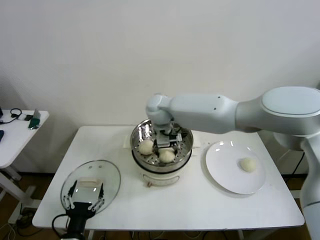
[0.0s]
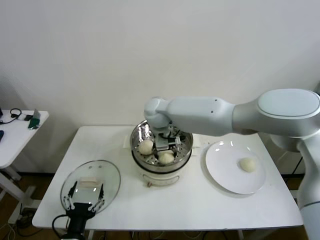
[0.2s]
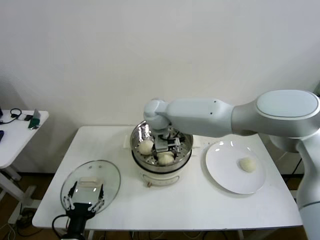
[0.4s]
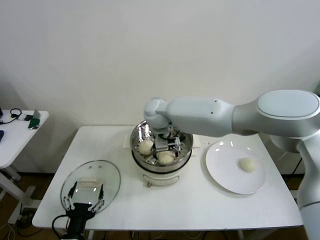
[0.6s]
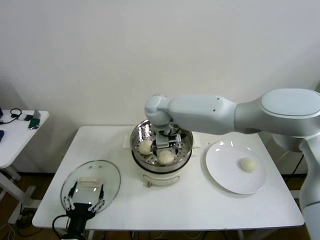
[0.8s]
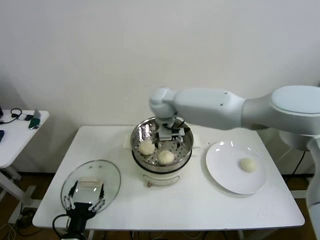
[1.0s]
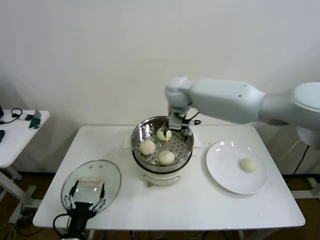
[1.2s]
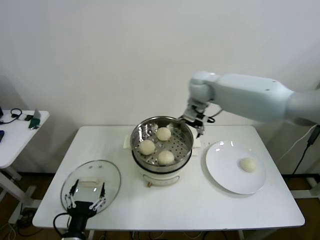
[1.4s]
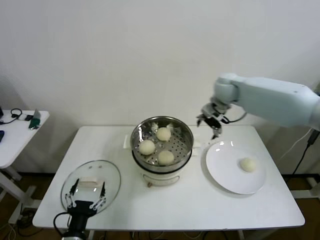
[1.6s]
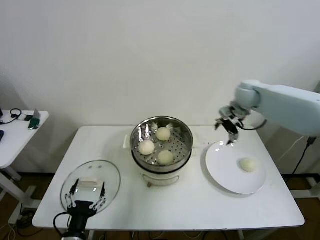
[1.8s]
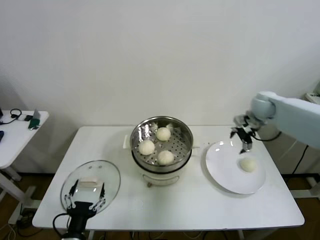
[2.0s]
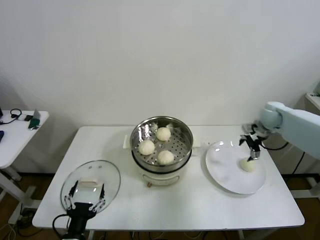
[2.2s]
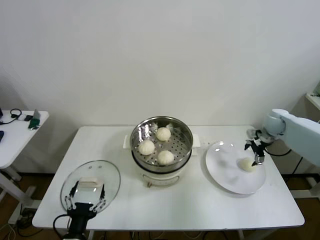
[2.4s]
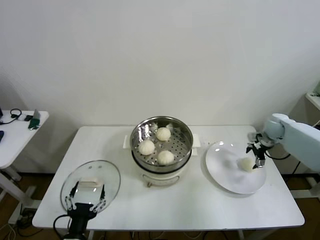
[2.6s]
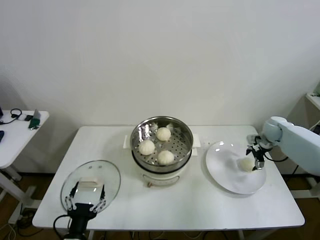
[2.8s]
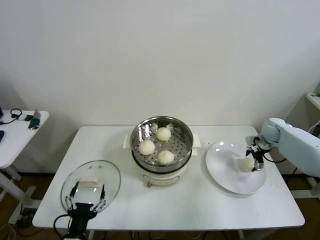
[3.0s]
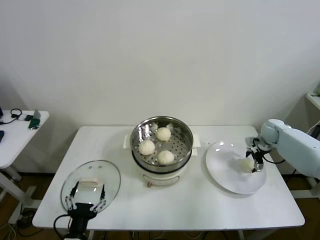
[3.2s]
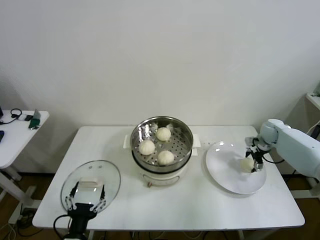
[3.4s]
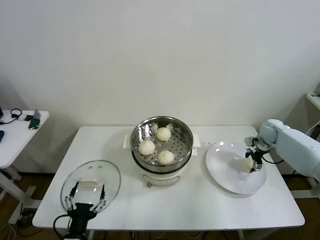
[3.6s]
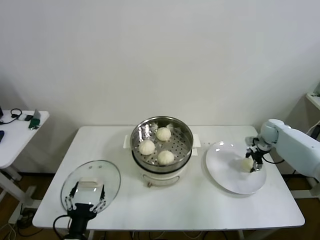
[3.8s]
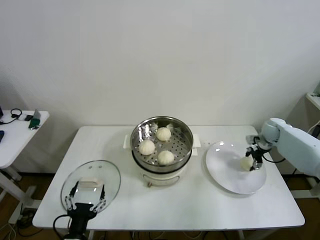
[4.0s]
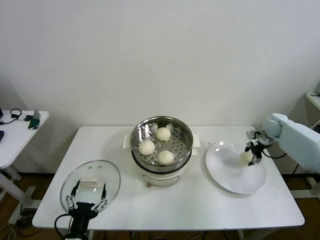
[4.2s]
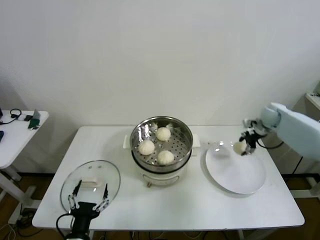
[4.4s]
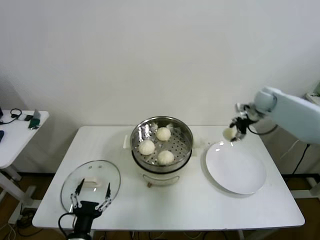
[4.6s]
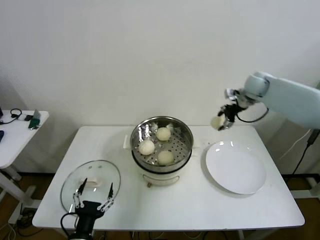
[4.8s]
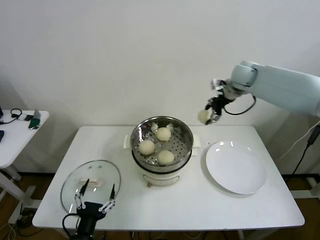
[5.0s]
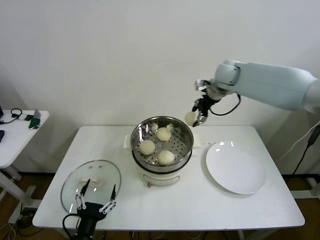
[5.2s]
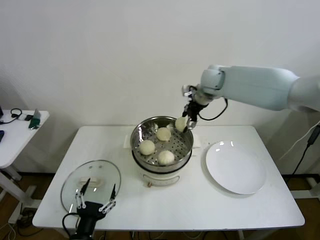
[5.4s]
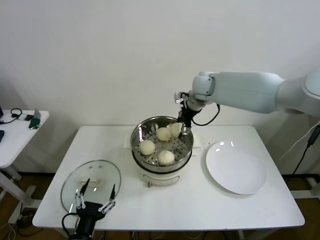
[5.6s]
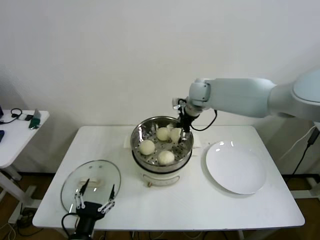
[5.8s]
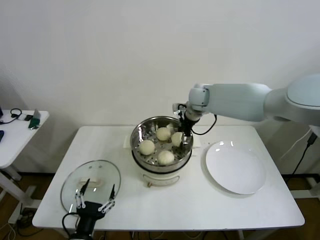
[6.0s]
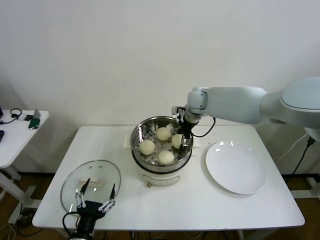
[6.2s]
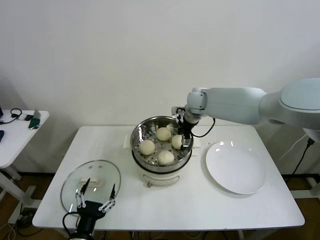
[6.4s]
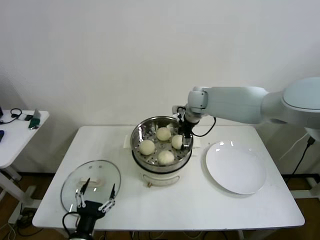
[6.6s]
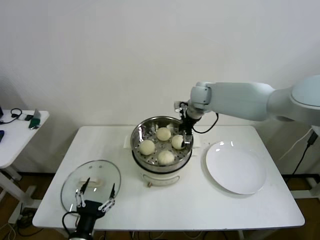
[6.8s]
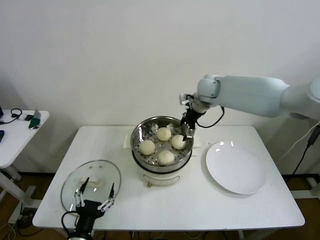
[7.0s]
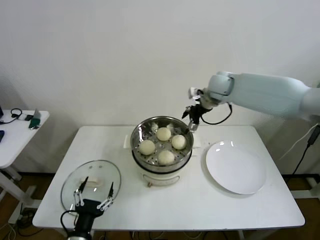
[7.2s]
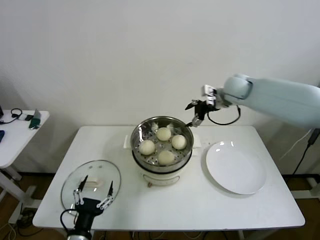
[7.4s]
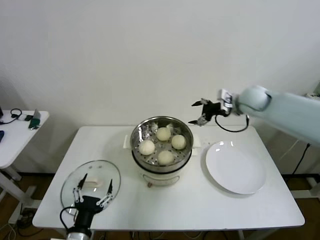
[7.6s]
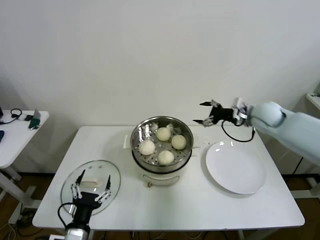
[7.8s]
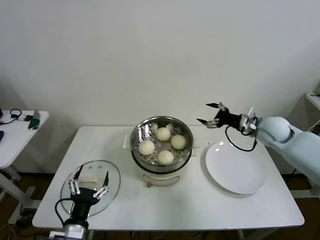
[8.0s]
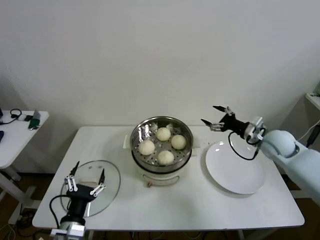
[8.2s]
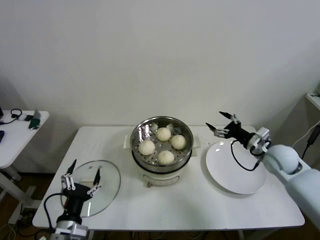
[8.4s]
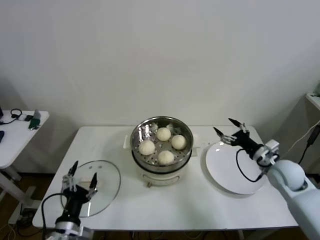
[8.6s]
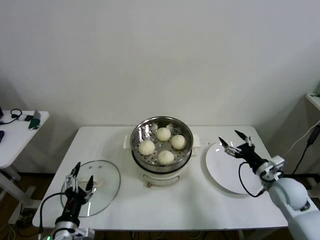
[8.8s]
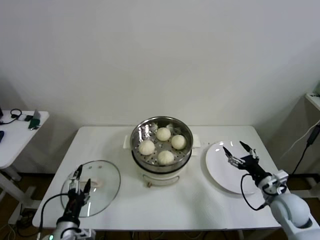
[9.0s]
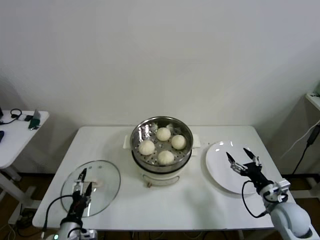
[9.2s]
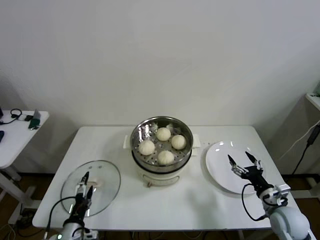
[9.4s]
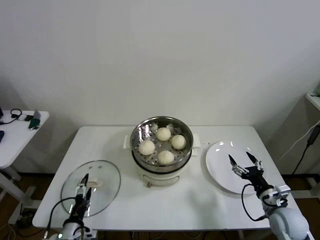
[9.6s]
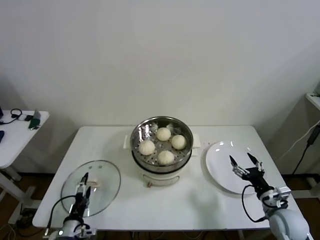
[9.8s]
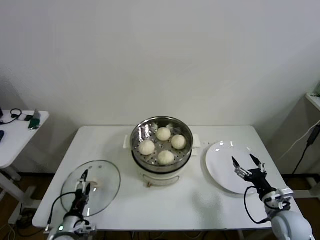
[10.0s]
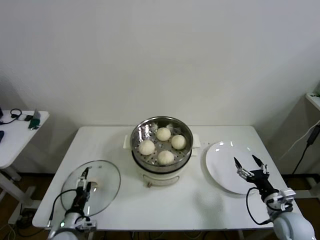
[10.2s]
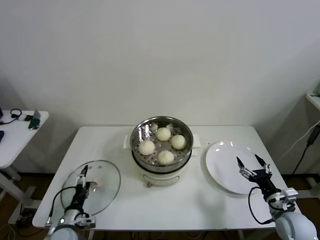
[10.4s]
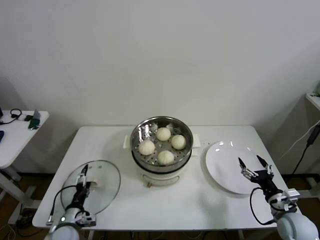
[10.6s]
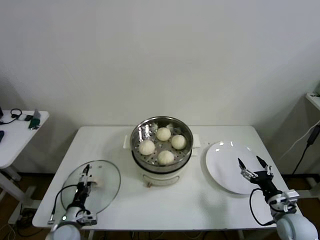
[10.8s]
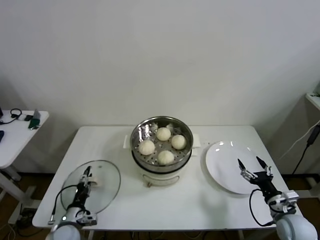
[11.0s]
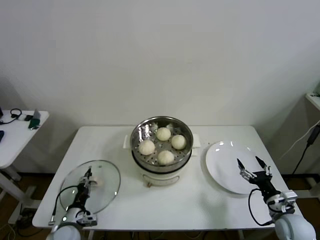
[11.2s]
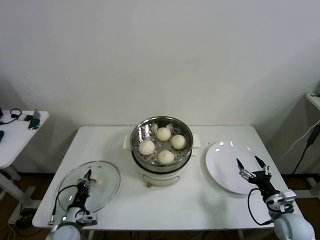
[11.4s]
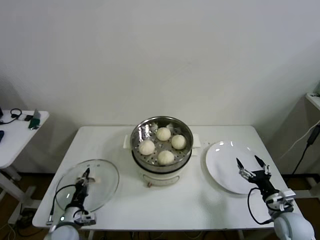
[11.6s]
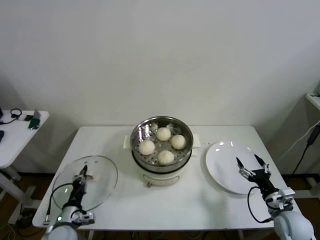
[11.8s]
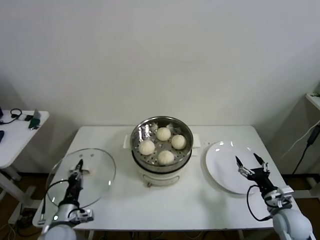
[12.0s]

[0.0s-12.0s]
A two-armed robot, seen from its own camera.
Step, 0.8s to 3.8s: Grasp the baozi in the plate with right gripper.
Step, 4.0s to 6.4s: Place the baozi on the steamer with right gripper.
Step, 6.6s to 11.4s: Grasp the pot lid with left gripper.
0.0s to 1.6s: The right gripper shifts about 25 cm to the right, and opens its fingers.
1.6s to 3.0s: The right gripper is displaced to the right and downward by roughly 30 cm.
3.0s to 4.4s: The right gripper moves upward, approximately 5 cm, and closes up.
4.4s to 6.0s: The right gripper is displaced to the left by about 30 cm.
6.0s to 7.6s: The right gripper moves to the right, some 15 cm, and opens.
7.6s to 9.0s: The right gripper goes about 35 cm backward and downward. The left gripper moves approximately 5 cm.
9.0s to 10.4s: The left gripper moves downward and forward, some 10 cm; the right gripper heads backward, covering roughly 5 cm.
10.4s to 12.0s: The left gripper closes.

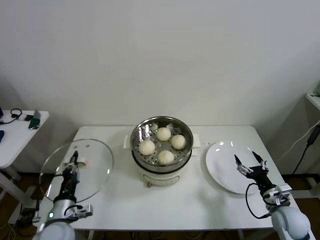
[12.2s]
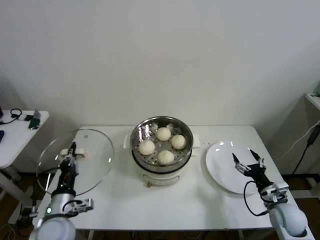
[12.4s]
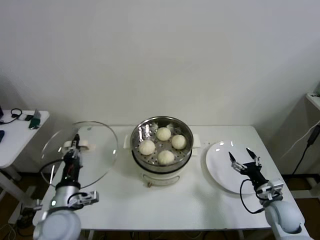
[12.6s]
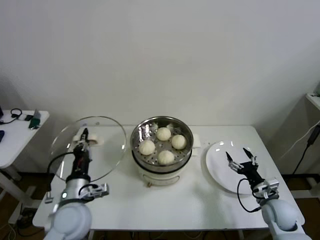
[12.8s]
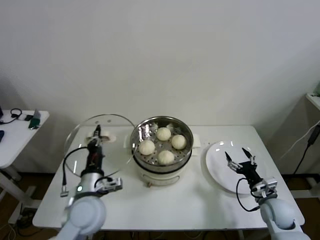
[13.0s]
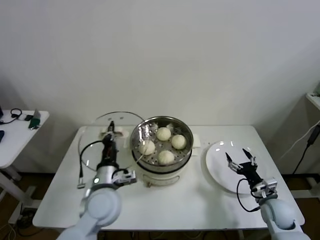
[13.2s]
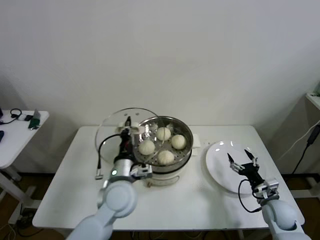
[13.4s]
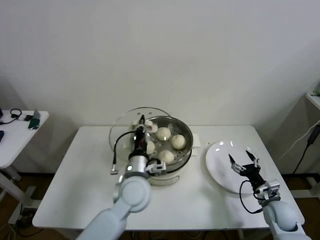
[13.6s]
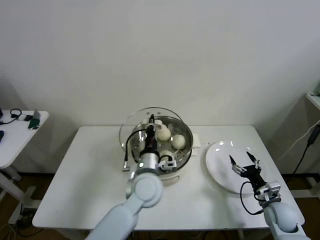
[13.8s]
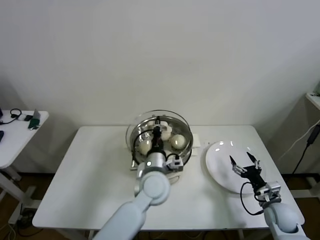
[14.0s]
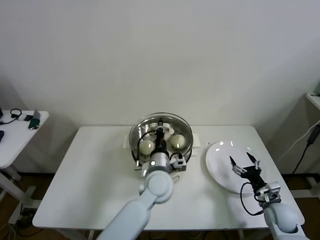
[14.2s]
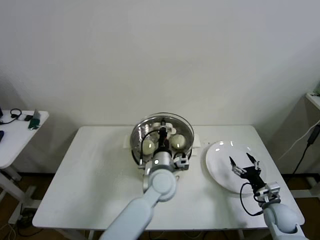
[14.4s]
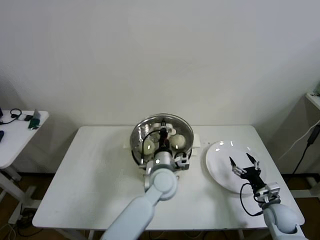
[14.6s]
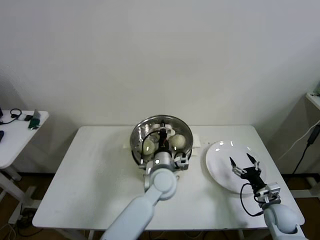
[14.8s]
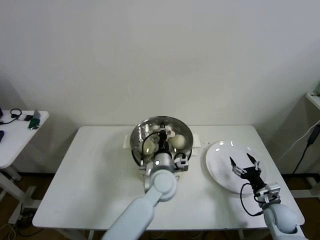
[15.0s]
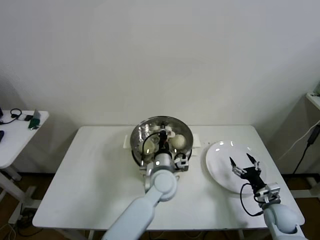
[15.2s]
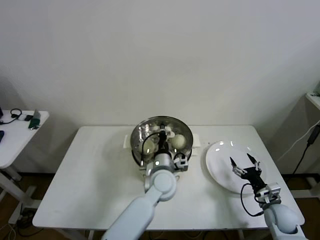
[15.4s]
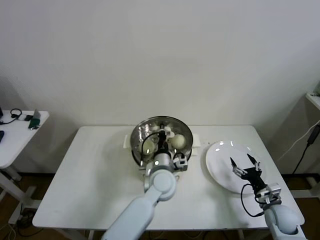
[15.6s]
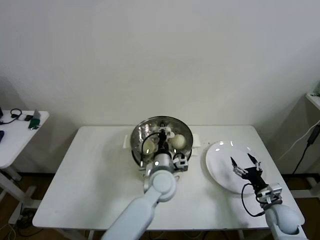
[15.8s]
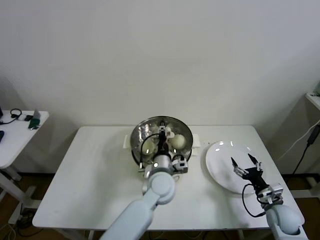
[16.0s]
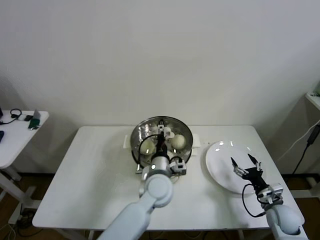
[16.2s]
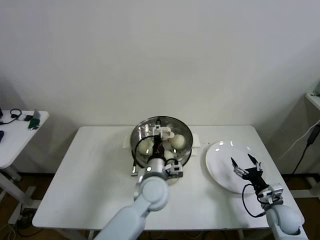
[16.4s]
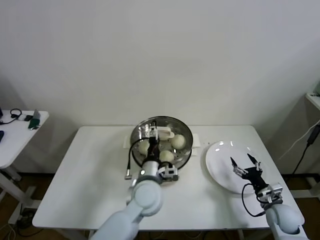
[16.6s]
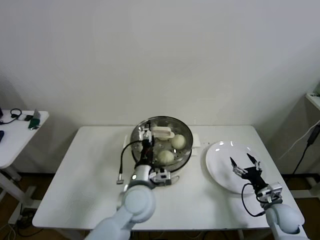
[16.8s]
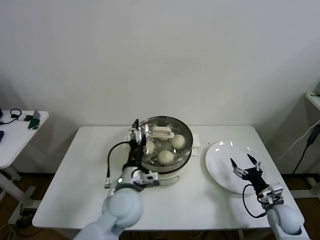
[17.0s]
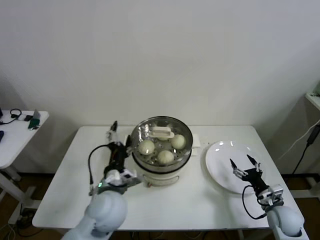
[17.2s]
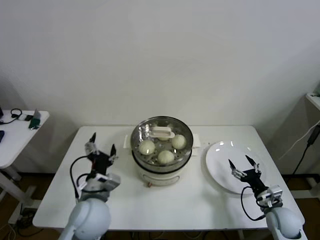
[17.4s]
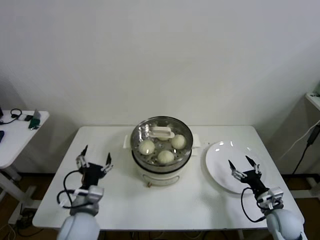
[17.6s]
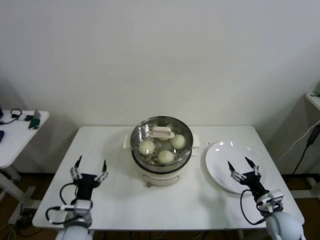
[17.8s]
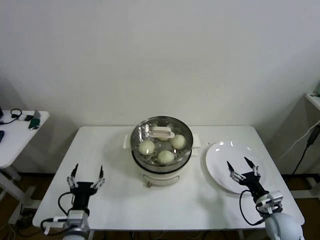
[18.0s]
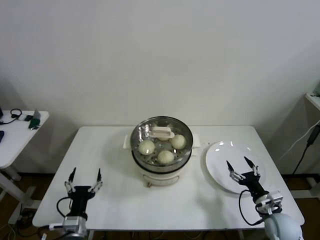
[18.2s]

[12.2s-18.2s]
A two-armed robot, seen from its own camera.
Step, 12.2s to 15.6s: Place the pot lid on the steamer with left gripper.
12.2s to 13.8s: The left gripper shifts about 30 cm to the right, forward and upward.
13.8s to 15.2s: The left gripper heads to the right, covering approximately 5 cm.
15.2s to 16.6s: The left gripper ends up roughly 5 cm from where it was, and opens its fingers.
16.6s to 18.2s: The left gripper is displaced to the left, backward and downward by about 30 cm.

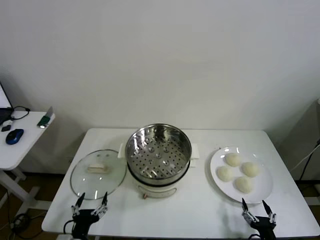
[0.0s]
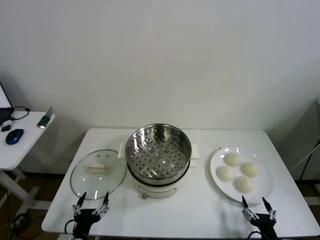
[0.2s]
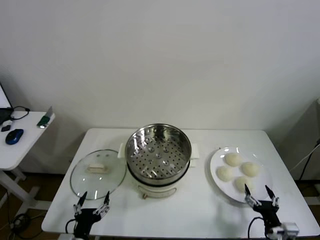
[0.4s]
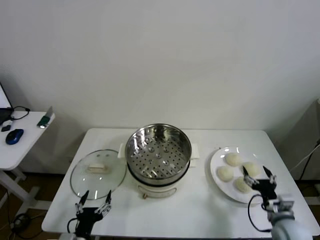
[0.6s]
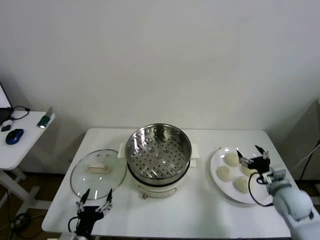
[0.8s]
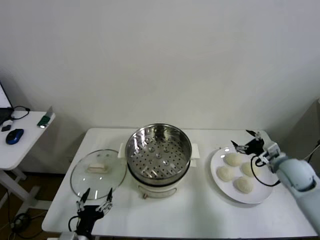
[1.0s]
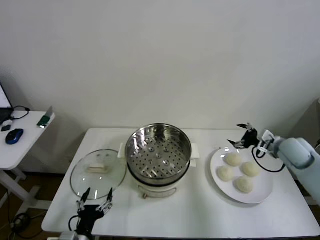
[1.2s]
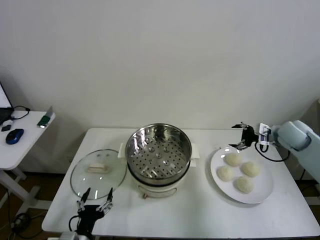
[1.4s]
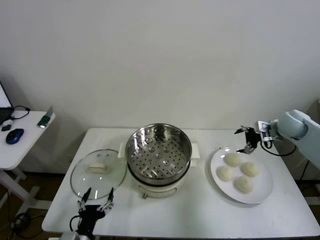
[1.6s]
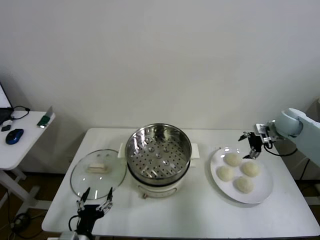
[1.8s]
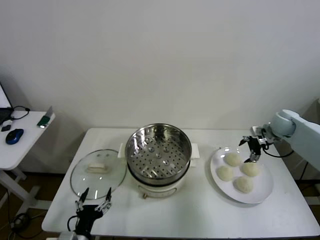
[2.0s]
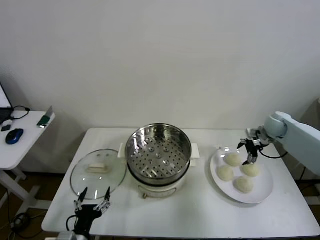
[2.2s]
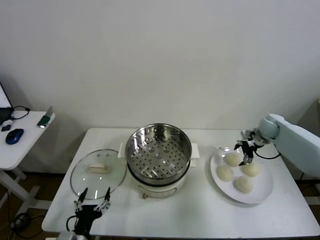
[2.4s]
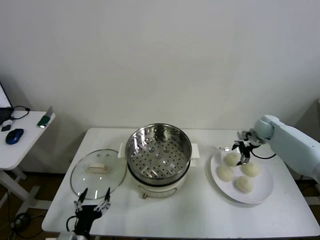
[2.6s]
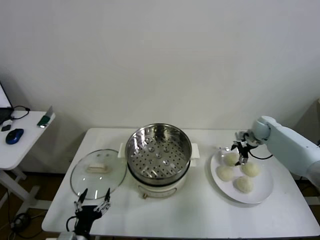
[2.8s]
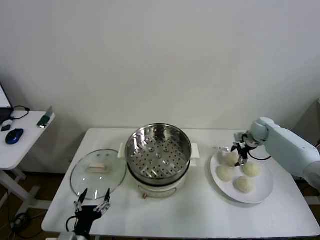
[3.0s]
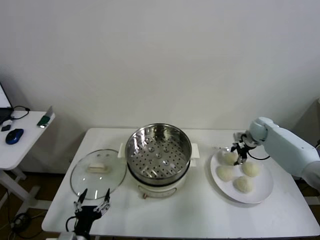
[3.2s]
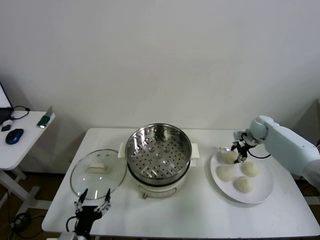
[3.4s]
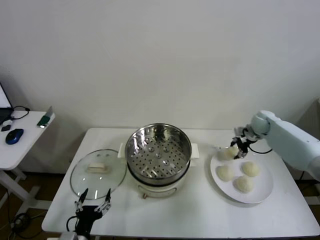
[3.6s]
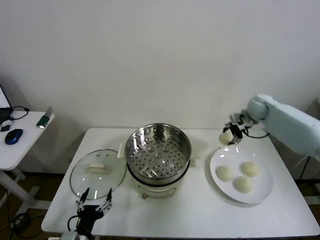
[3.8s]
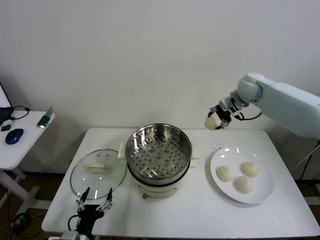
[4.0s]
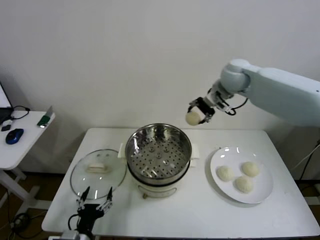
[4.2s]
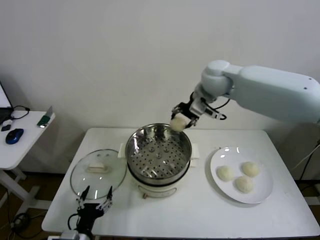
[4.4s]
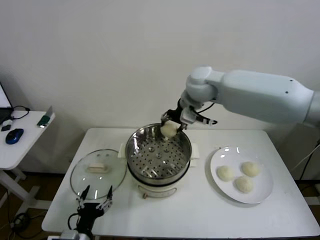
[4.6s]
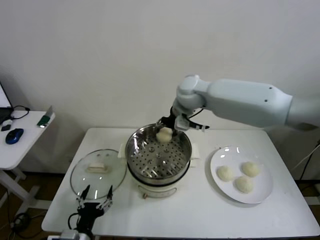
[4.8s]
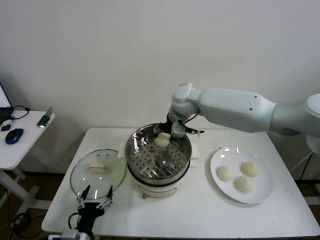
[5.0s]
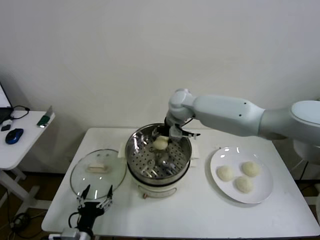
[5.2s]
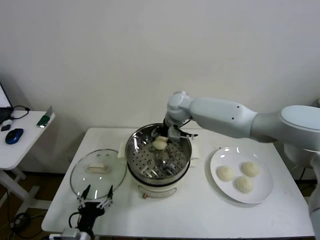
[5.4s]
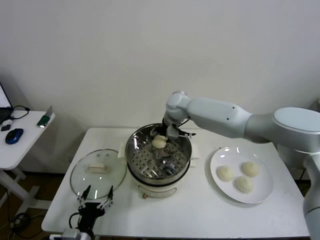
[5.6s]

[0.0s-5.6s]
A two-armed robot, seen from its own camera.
Step, 0.0s to 3.2s: Grasp the baozi in the plate with right gripper.
1.4s to 2.8s: The right gripper moves downward and forward, about 15 cm.
2.8s to 4.2s: The right gripper travels upward and to the left by roughly 35 cm, and closes up.
4.2s to 5.6s: The right gripper heads downward and to the left, covering approximately 20 cm, and opens.
